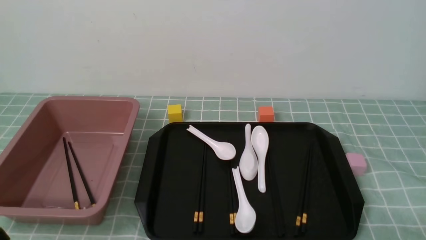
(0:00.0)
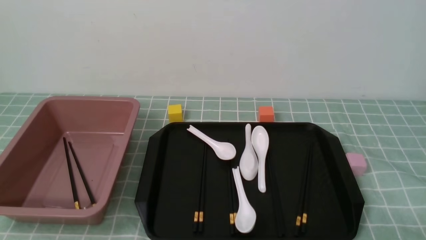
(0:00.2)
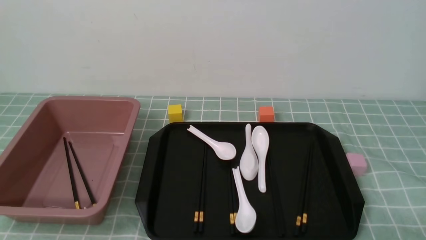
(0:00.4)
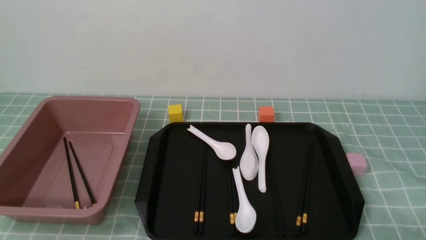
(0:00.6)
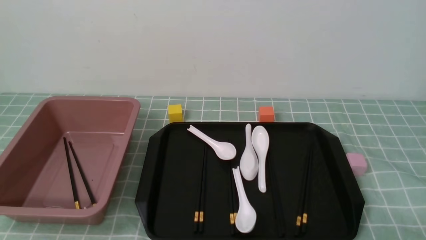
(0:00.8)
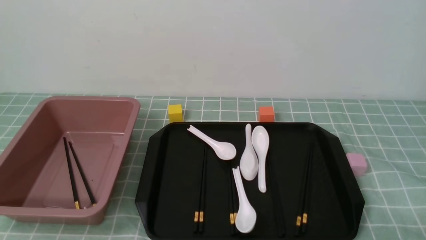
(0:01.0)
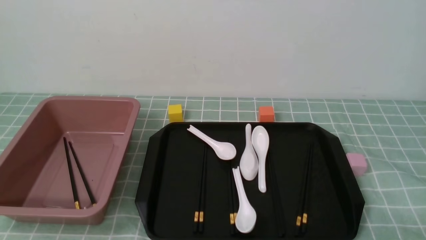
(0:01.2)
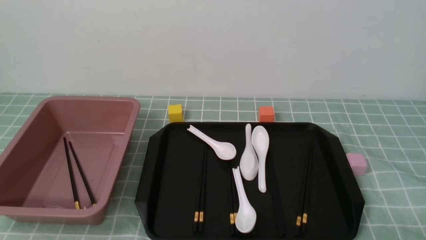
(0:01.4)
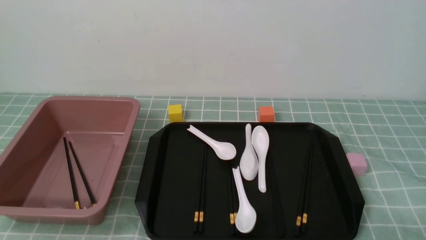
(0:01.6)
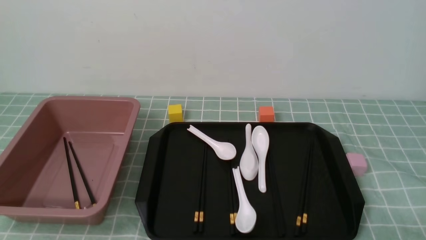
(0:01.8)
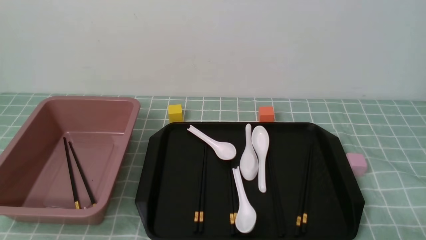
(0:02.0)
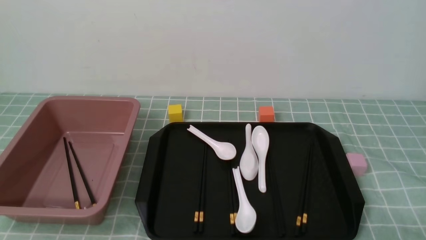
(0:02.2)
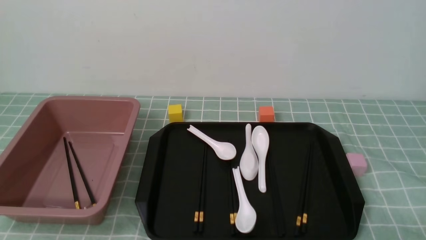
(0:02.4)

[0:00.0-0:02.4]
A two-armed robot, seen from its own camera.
0:01.2 to 0:02.4: Both grippers stay put.

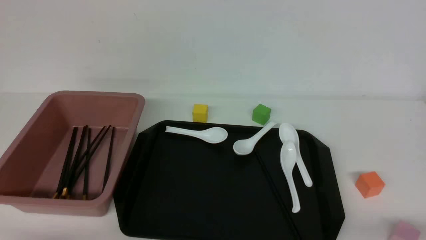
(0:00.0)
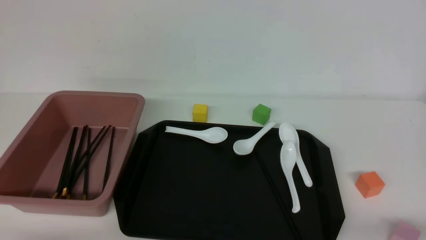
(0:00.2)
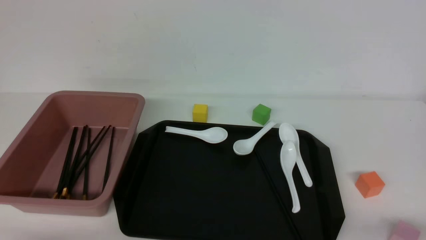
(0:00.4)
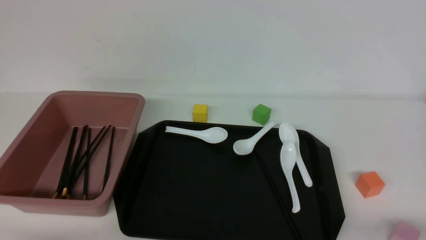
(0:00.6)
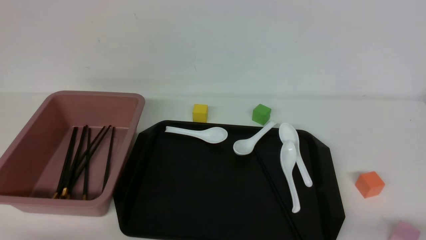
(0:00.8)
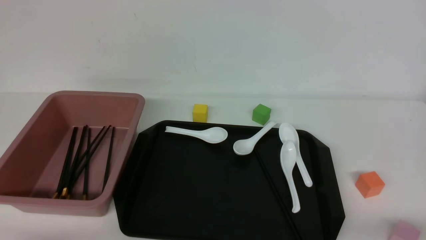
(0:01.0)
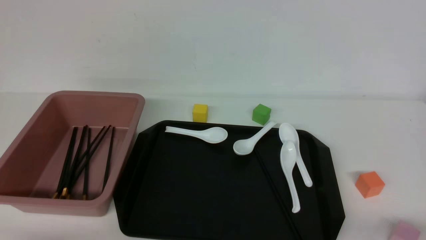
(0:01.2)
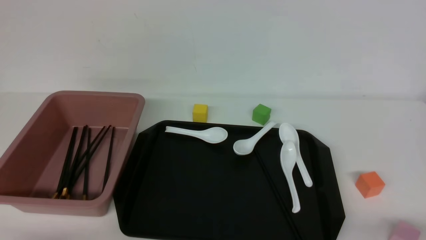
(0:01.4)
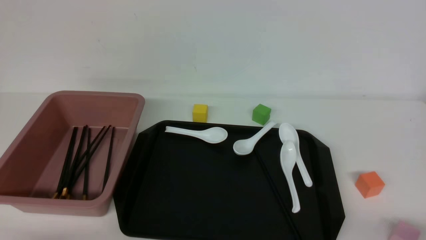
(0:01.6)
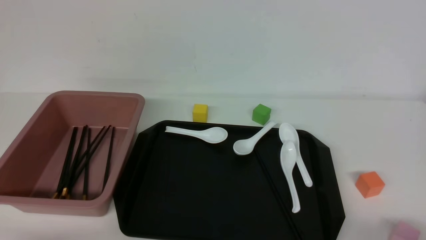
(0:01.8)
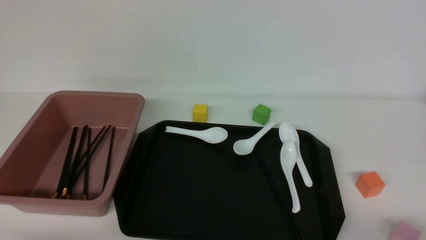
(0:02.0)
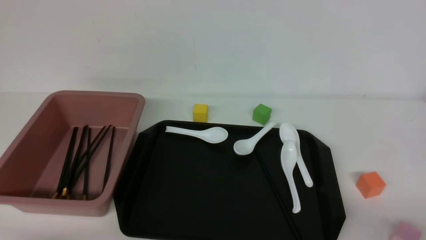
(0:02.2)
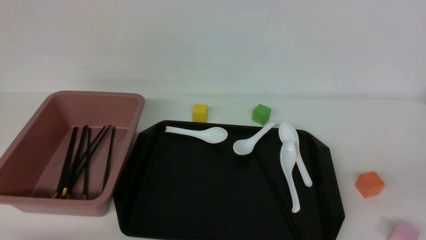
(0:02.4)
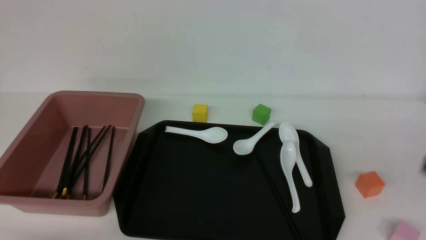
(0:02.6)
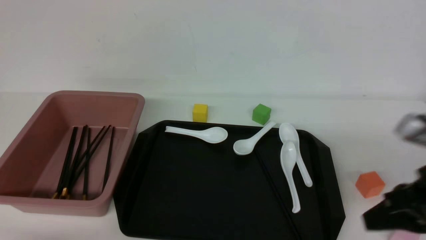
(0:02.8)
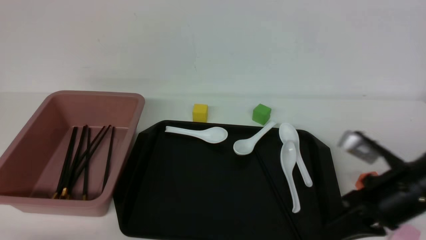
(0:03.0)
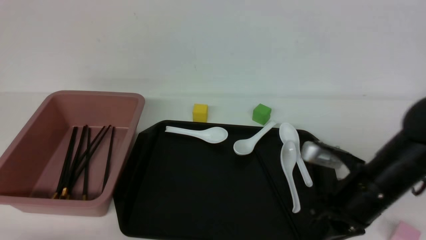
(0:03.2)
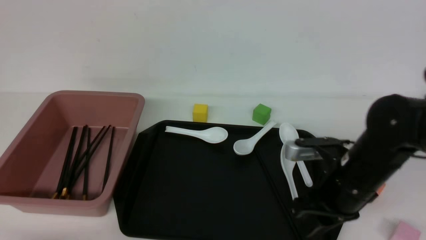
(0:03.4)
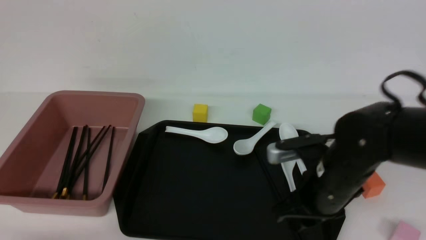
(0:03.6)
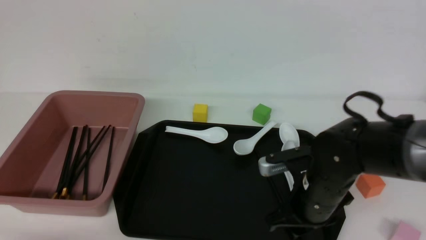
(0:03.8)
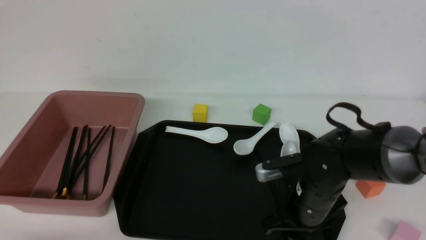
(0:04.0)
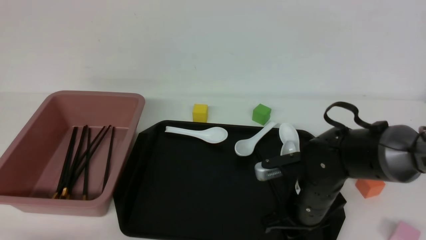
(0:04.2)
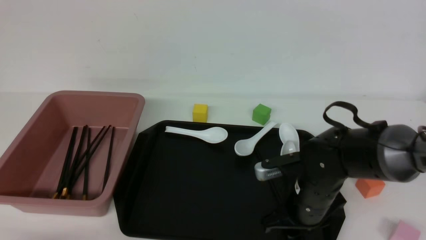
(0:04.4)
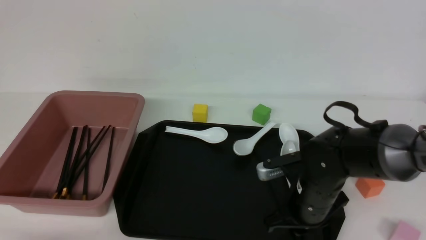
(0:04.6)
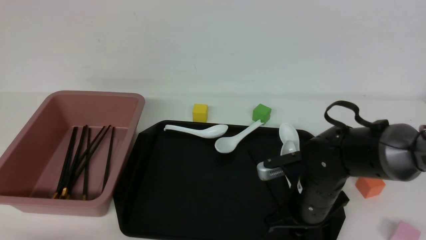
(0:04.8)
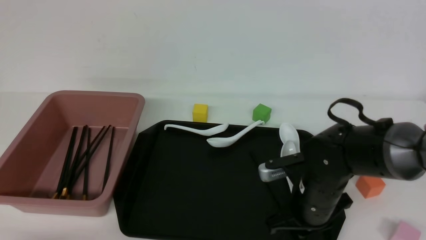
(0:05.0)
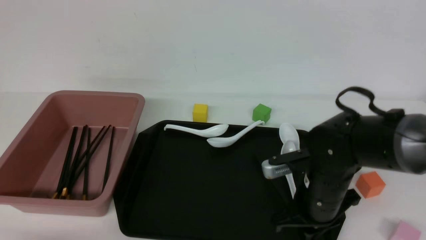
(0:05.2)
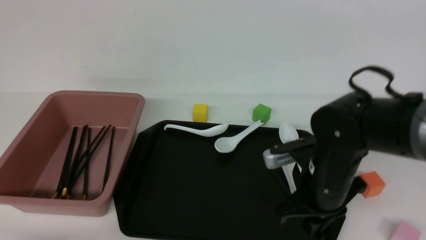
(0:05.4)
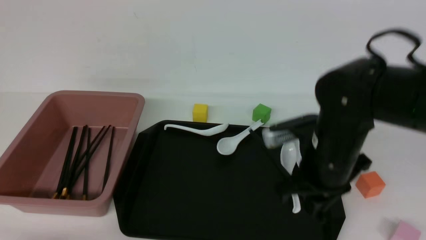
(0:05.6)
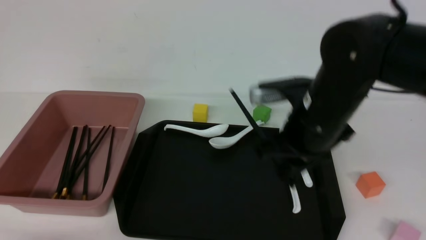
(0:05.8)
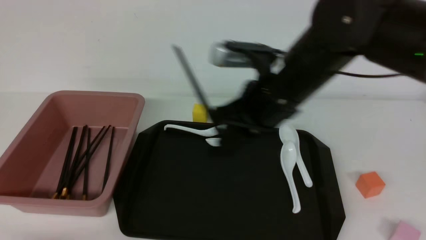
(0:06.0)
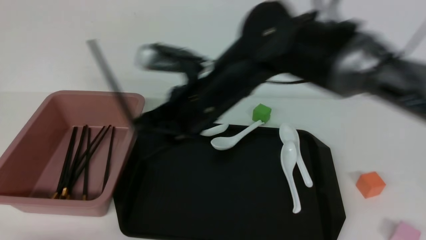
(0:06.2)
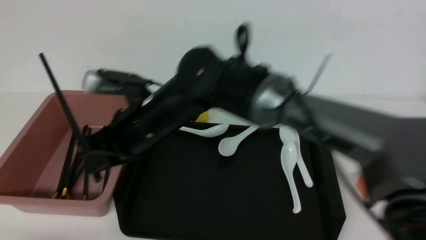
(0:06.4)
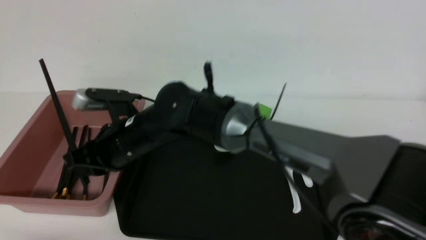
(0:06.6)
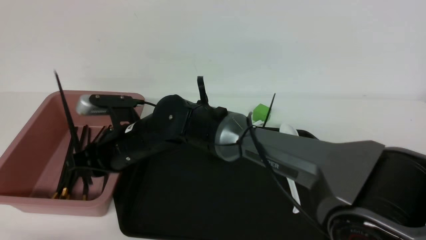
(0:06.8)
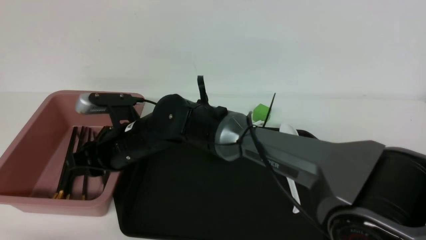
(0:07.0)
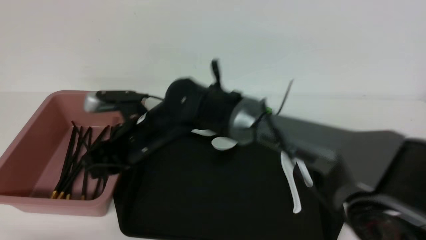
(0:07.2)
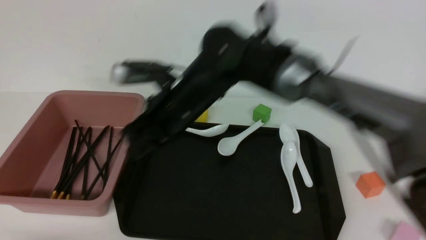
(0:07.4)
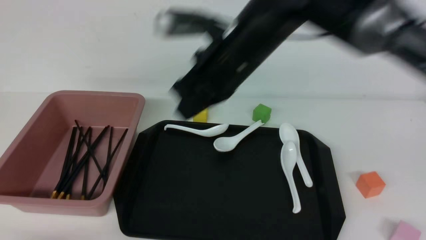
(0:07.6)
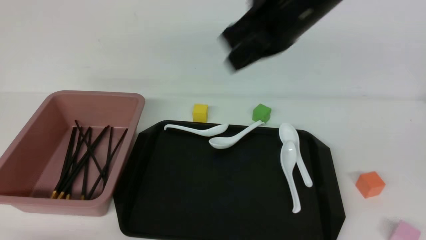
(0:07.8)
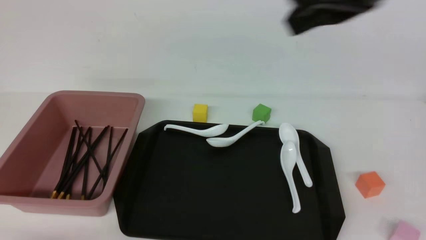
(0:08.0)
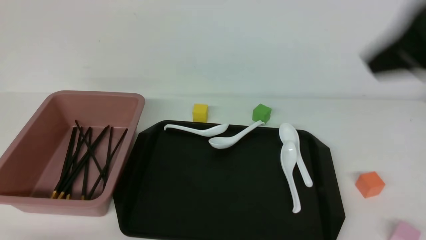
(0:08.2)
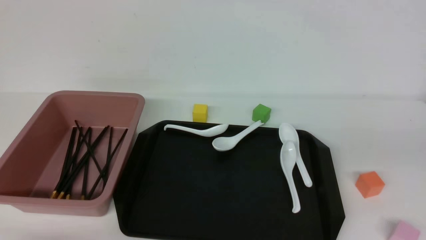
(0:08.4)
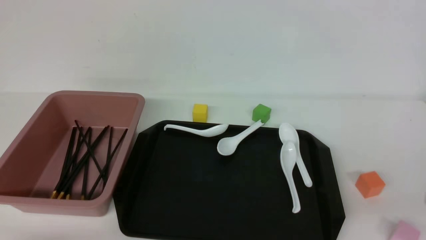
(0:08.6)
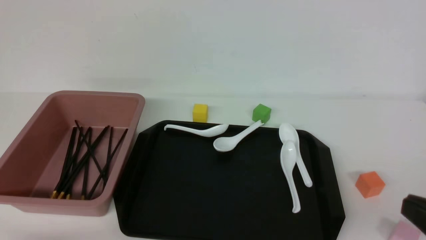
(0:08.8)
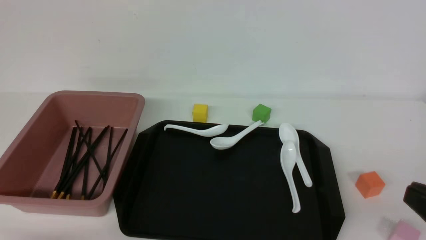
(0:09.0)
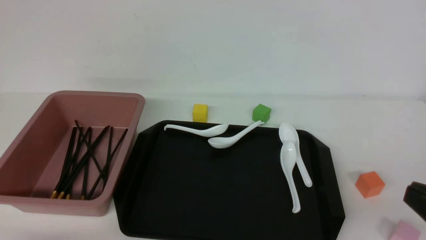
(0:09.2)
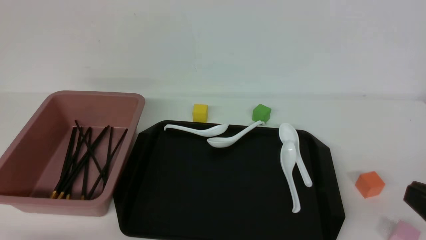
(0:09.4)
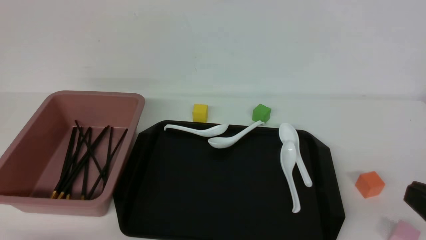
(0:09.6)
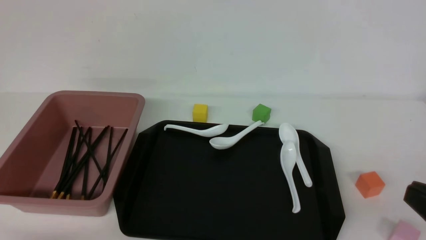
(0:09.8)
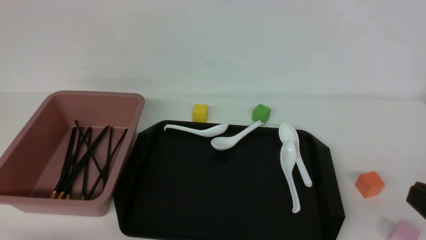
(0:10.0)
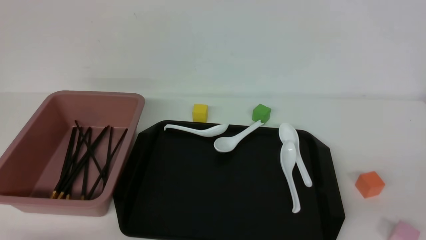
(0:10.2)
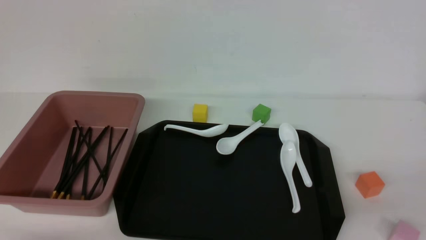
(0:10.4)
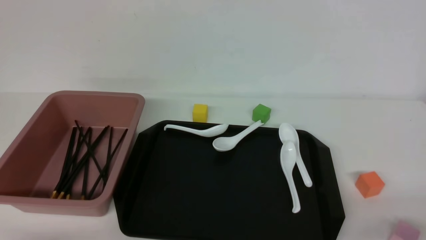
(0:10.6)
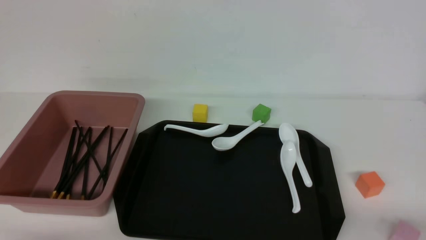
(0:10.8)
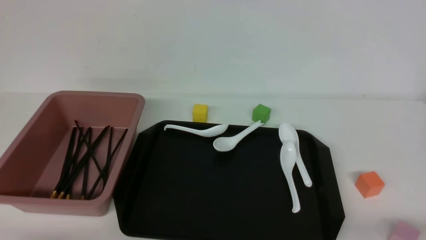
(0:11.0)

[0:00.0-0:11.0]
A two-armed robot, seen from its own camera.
Step, 0:00.0 to 0:05.6: use the right arm to grab a pair of chopsticks.
Step, 0:05.8 to 0:07.4: use the right arm to put the chopsticks into the lunch box.
0:01.6 to 0:03.2: The right gripper travels forward and to the left by roughly 20 cm, and closes, then opens again.
0:03.2 to 0:04.8: The right gripper moves to the left and downward, some 10 cm, and opens, then closes once more.
0:04.8 to 0:06.2: The right gripper moves upward and to the left, roughly 20 cm.
0:06.2 to 0:07.8: The right gripper is displaced upward and to the right by approximately 10 cm, and closes its fingers.
0:07.8 to 0:09.4: The right gripper heads backward, to the right and downward, covering approximately 35 cm.
0:09.4 to 0:11.0: The right gripper travels downward by about 10 cm.

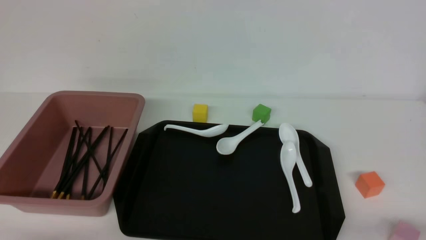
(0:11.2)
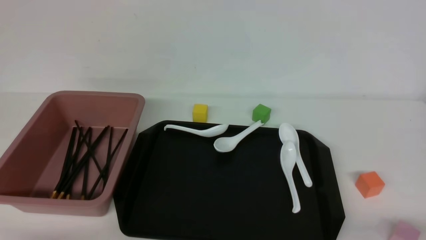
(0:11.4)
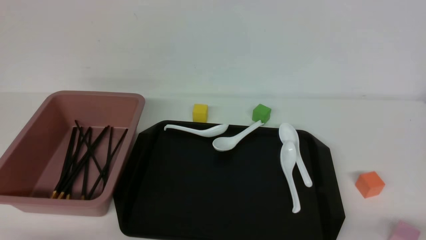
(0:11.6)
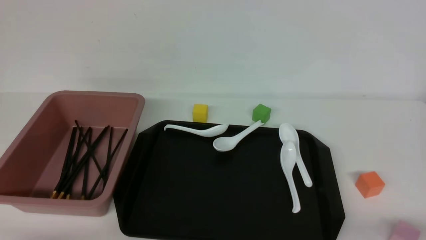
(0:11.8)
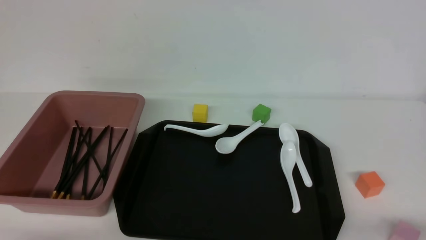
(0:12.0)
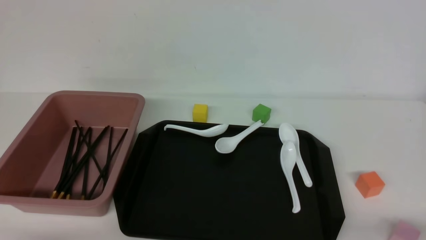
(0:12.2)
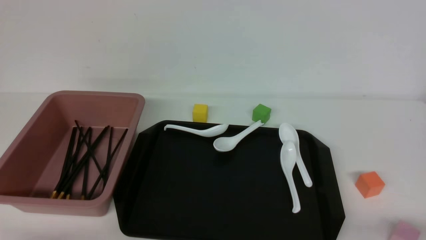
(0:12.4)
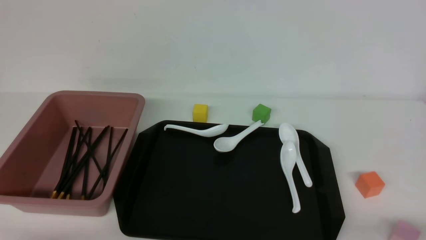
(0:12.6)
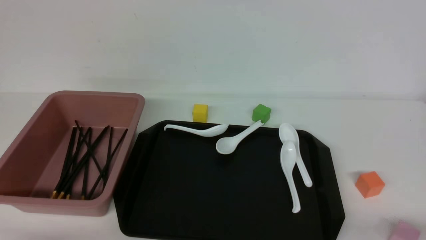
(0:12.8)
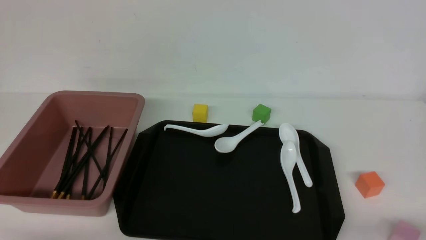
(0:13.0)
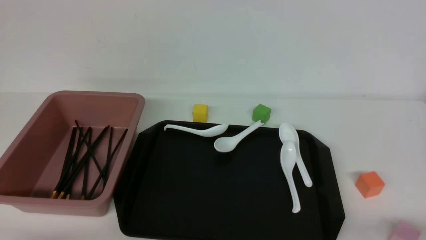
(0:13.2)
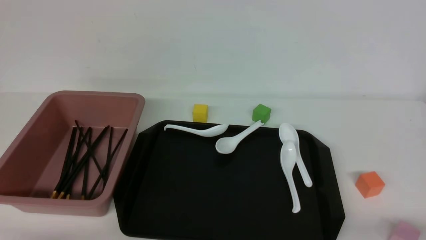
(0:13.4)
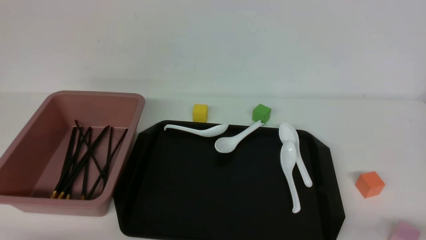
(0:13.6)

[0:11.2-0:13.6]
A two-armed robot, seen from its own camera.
0:11.2 to 0:13.6: Both grippers stay about where they are.
